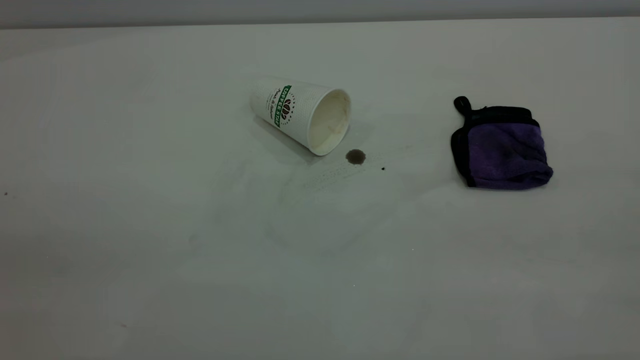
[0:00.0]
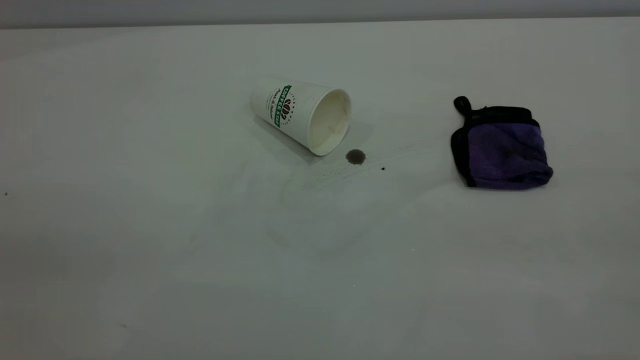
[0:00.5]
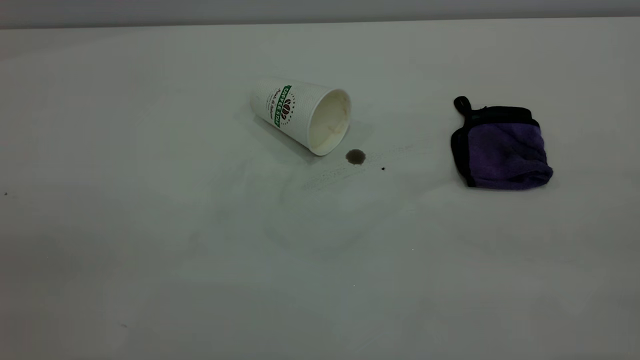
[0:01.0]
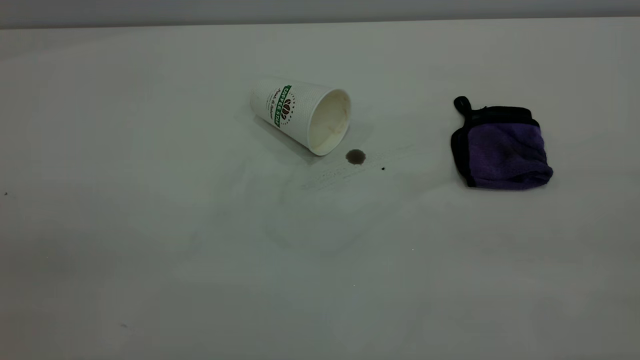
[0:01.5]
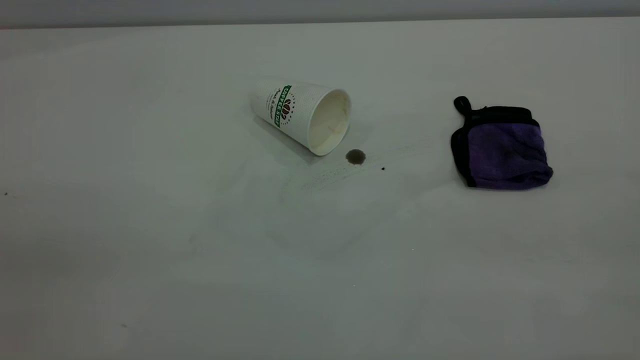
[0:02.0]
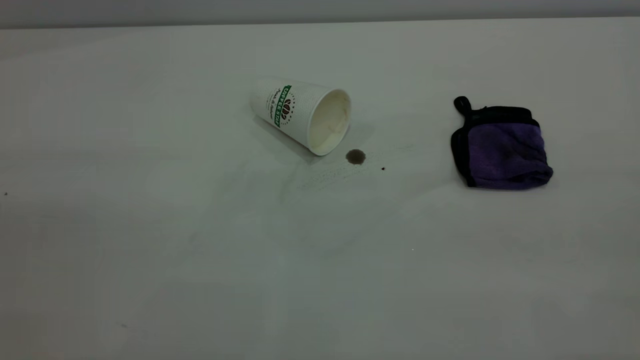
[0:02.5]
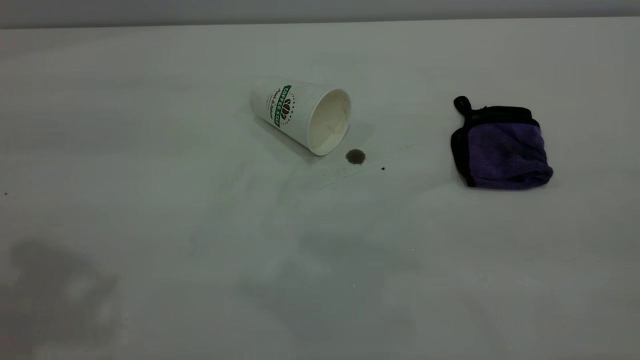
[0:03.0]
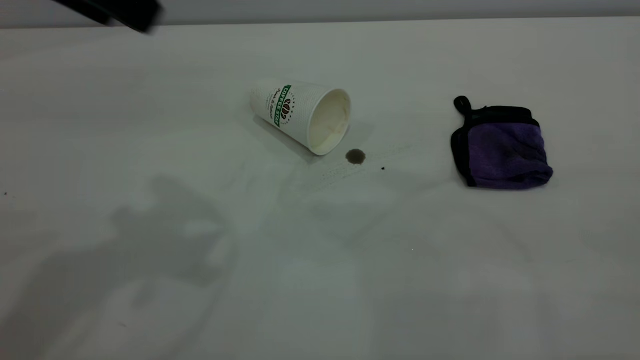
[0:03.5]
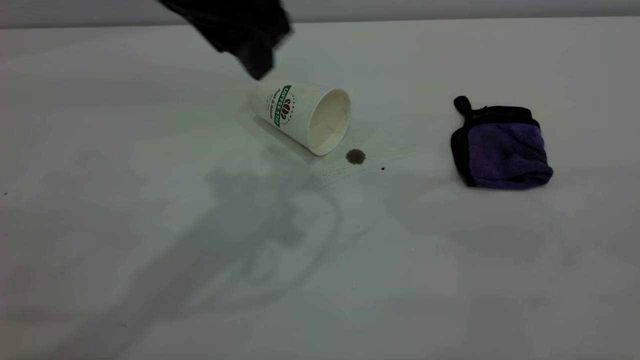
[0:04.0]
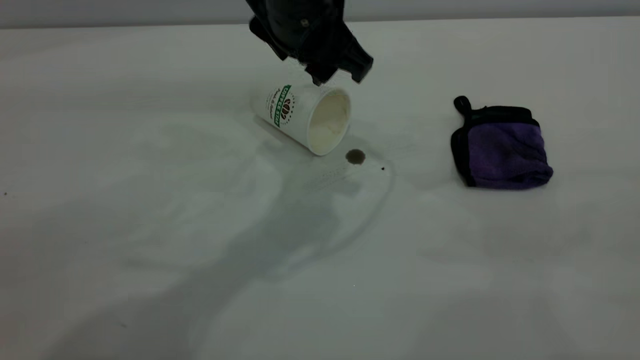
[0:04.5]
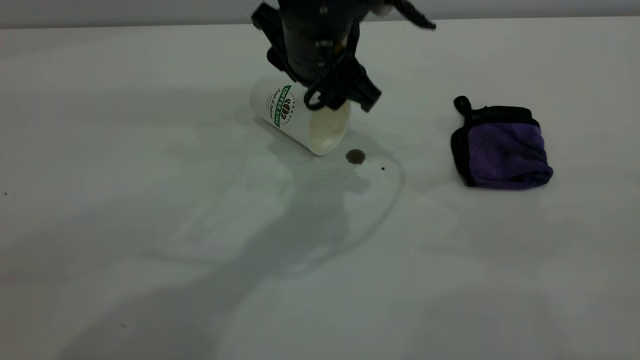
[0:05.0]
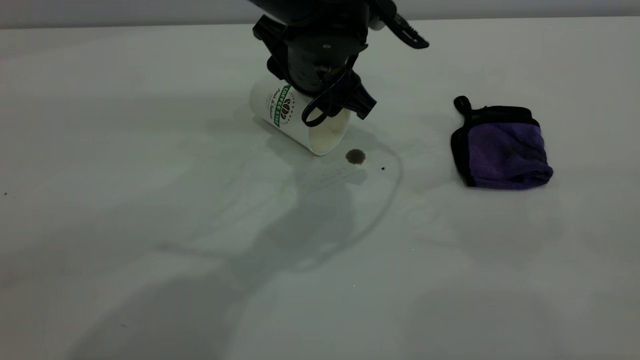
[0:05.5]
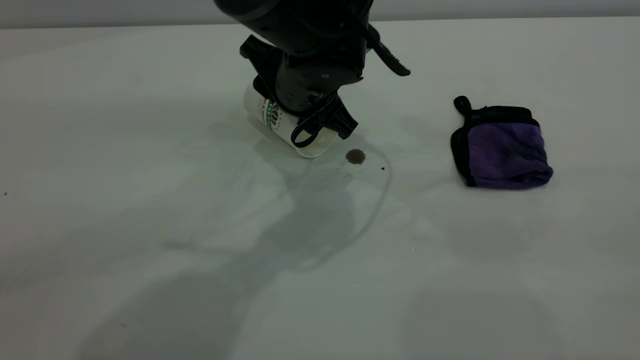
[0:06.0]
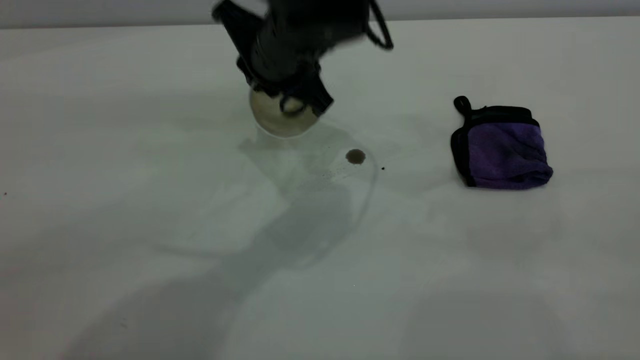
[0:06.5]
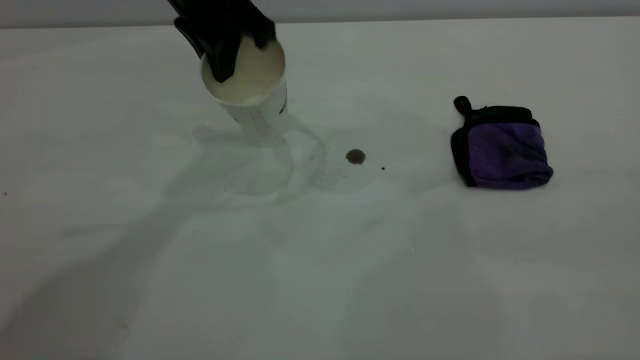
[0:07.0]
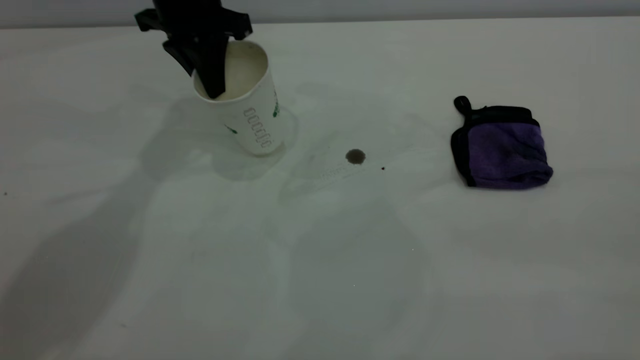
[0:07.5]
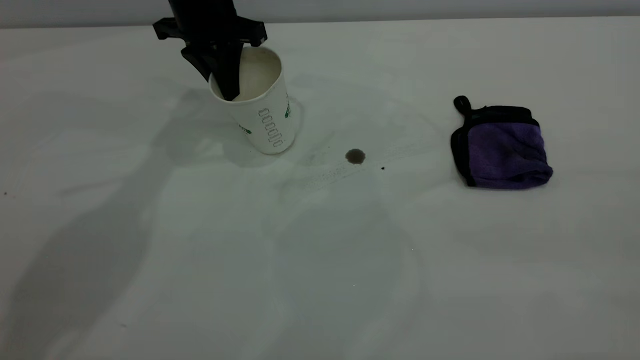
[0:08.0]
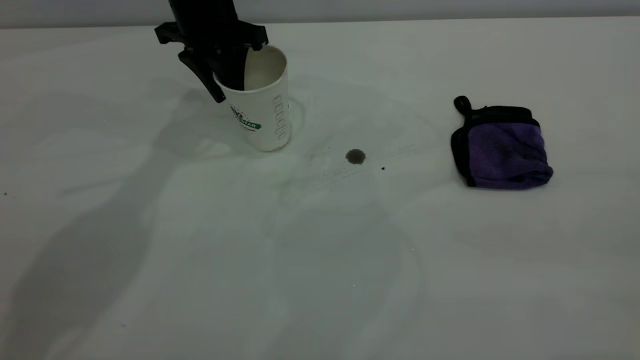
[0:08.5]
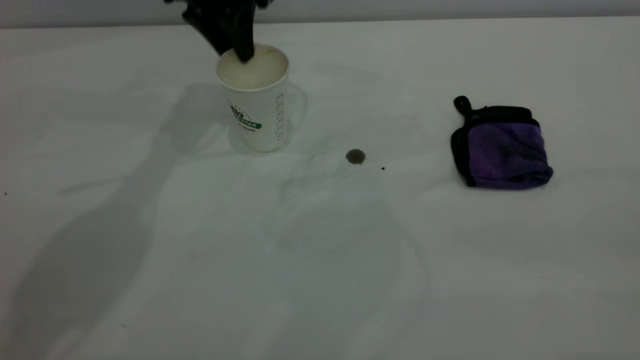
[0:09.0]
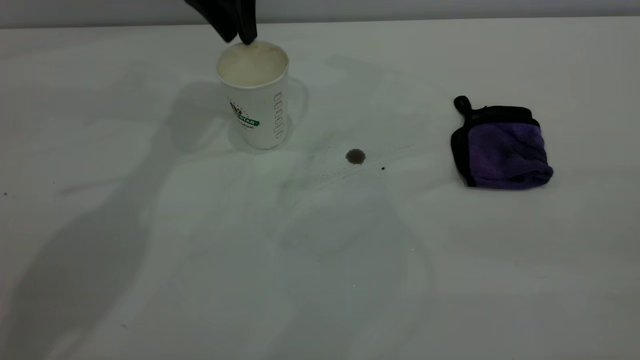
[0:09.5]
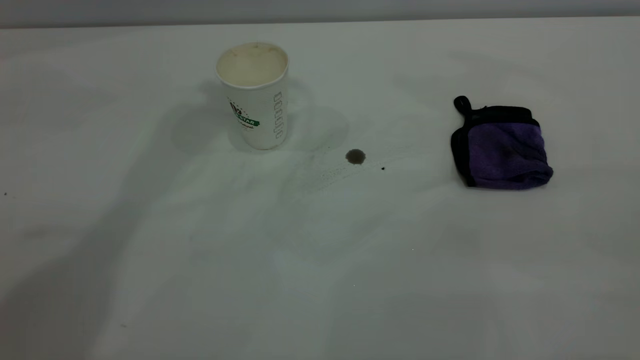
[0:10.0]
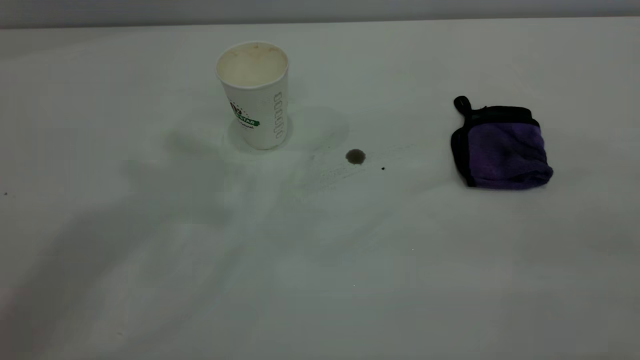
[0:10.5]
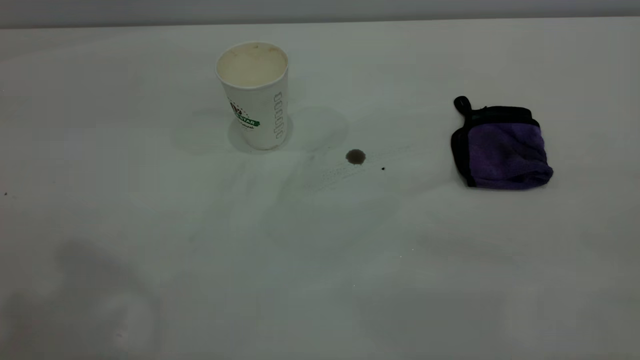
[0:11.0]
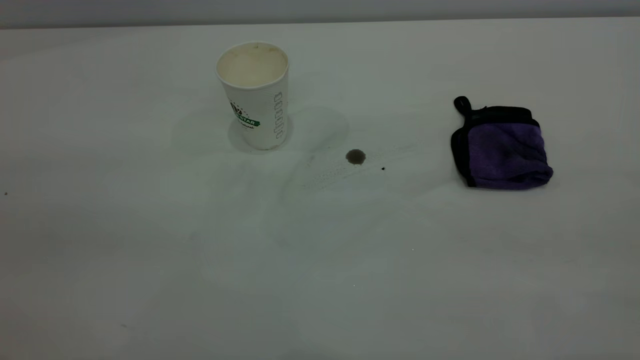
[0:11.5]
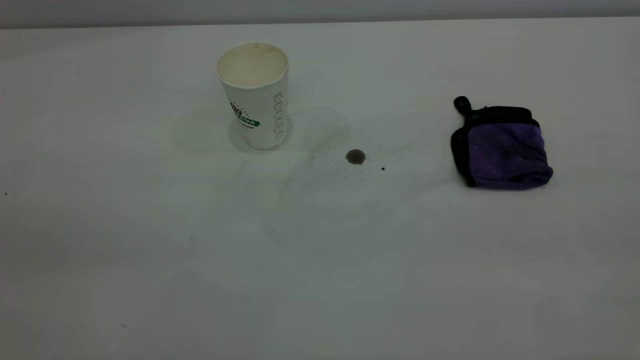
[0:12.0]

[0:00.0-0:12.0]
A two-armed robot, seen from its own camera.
Task of the whole recording: the left gripper pick up the fallen cup and place it upright, the right gripper grasp the purple rag and wipe the coffee stain on the table, the right gripper put the purple rag back in its original position.
Step, 0:00.0 to 0:09.0: Stand the paper cup upright.
0:00.0 to 0:02.0: Both grippers stay about where they are.
0:02.0 to 0:04.0: The left gripper goes some 40 cm forward and to the right.
0:04.0 to 0:06.0: The left gripper is displaced downward by roughly 15 cm.
0:06.0 to 0:08.0: The left gripper goes approximately 20 cm to the left and forward, and closes.
0:08.0 to 0:10.0: The left gripper goes about 30 cm upward, and opens its fingers.

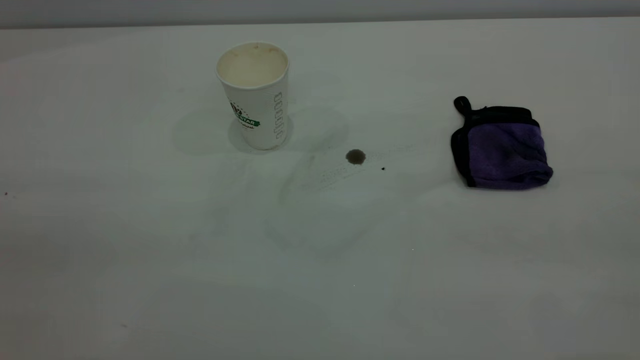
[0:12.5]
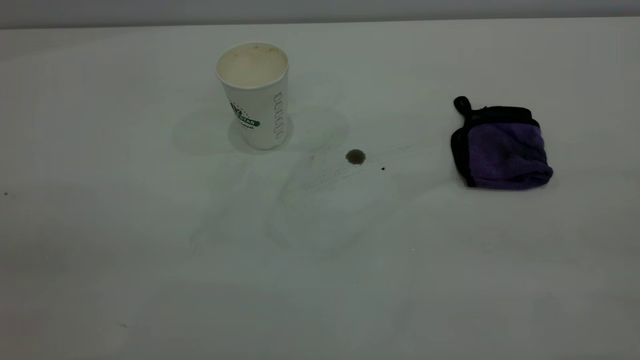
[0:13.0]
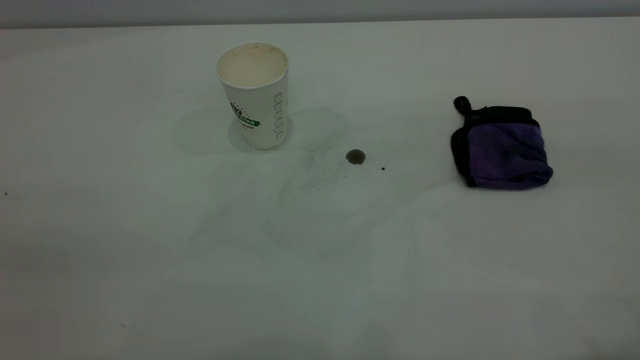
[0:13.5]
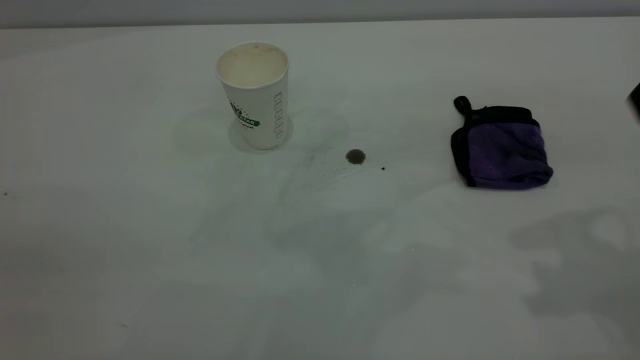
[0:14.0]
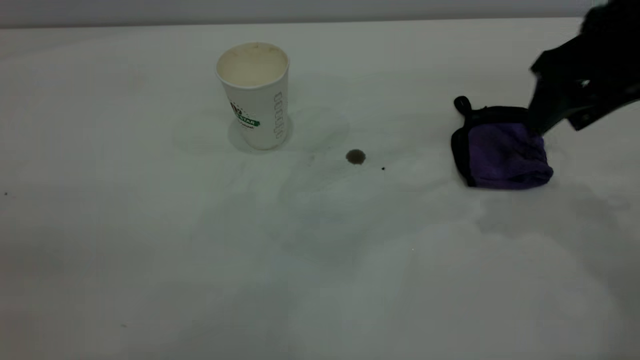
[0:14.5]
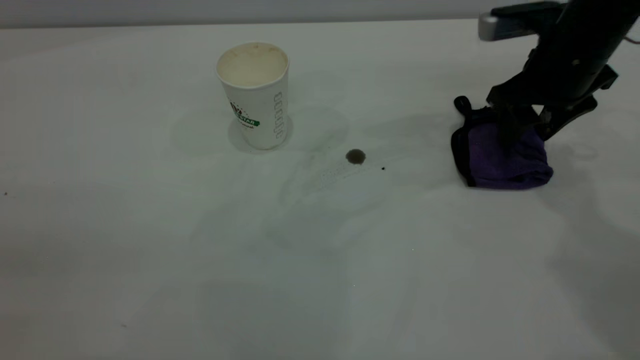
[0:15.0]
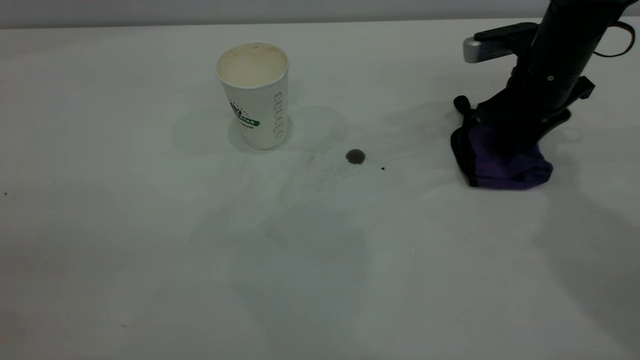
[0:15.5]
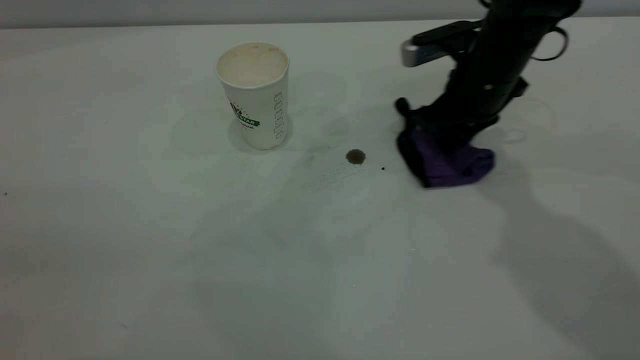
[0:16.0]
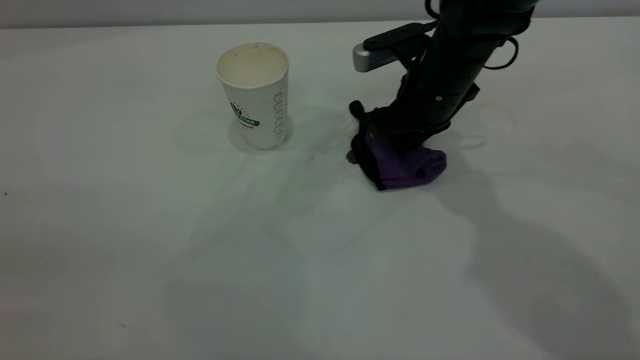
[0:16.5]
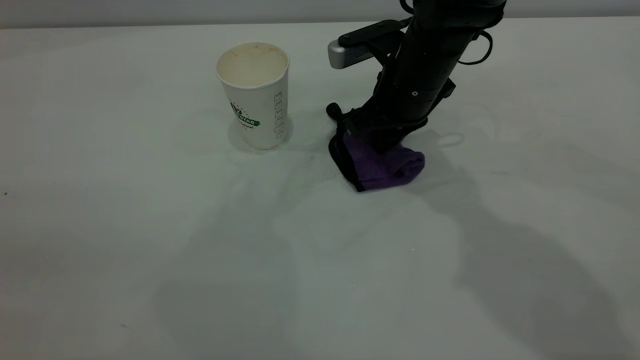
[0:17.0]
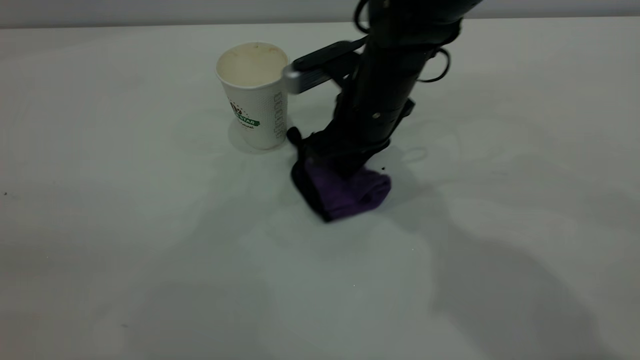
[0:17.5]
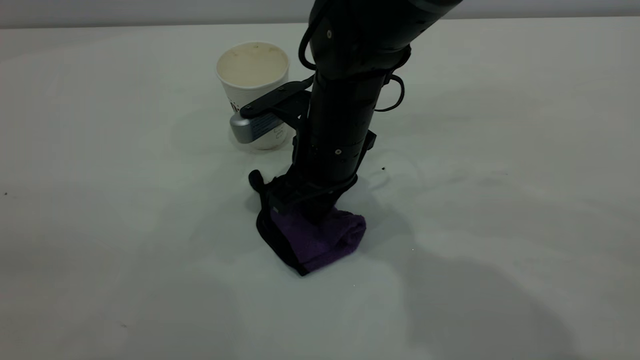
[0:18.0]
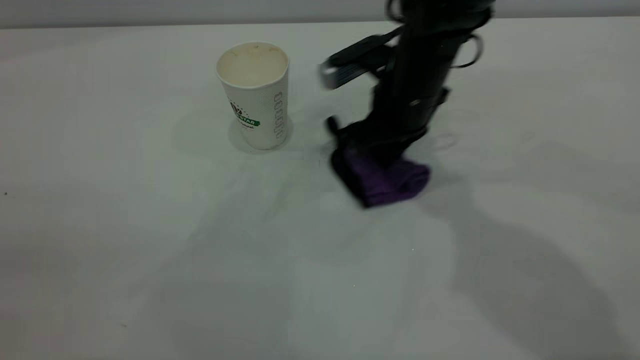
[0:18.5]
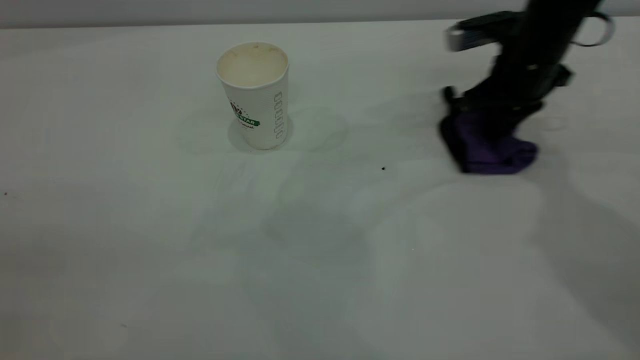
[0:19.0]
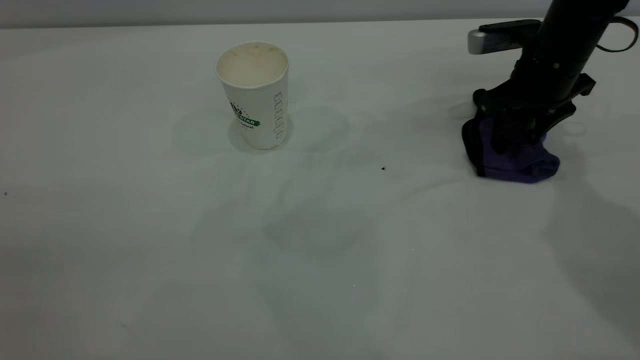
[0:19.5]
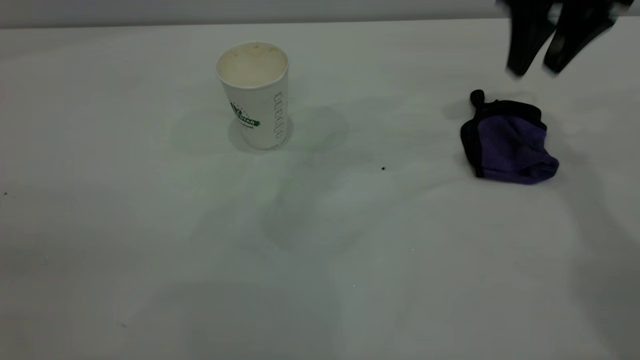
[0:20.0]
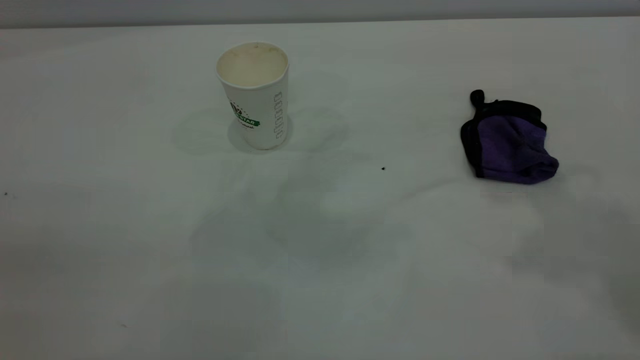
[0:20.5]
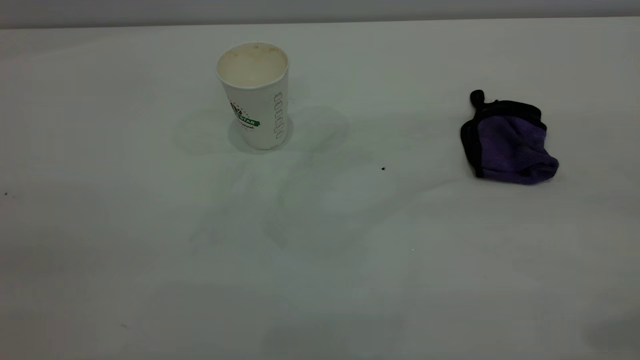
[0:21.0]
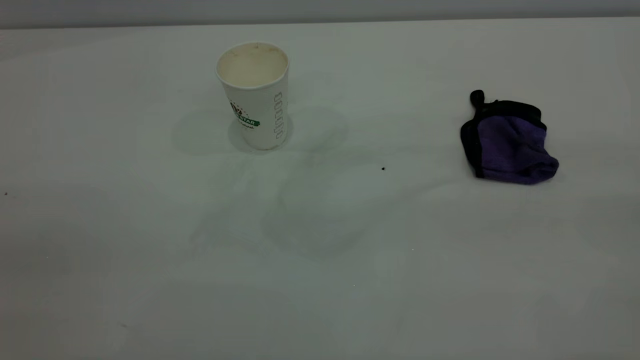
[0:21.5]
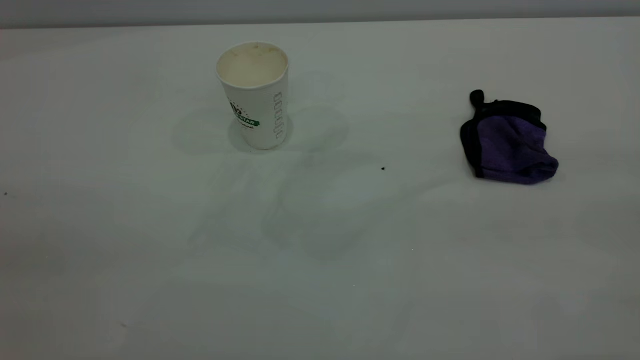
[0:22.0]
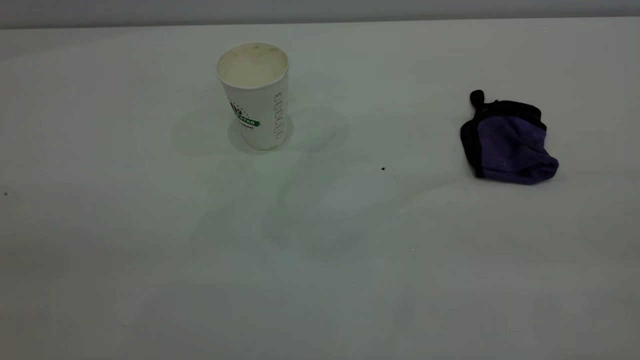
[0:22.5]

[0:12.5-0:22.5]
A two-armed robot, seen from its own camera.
Task of the whole recording: the left gripper pick up the fallen cup and place it upright, the right gripper grasp the purple rag and wipe the coffee stain on the table, the right gripper put the purple rag back in its original position.
Step, 0:12.5 to 0:19.5: Wipe the stains off the table with a rag.
0:12.5 to 0:14.5: The right gripper travels forward and downward by about 35 cm, and opens up.
0:14.5 to 0:16.5: The right gripper heads to the left, downward and forward, covering roughly 20 cm, and closes.
0:16.5 to 0:18.5: The right gripper travels to the left and back again, roughly 10 cm each way.
0:18.5 to 0:20.5: The right gripper goes some 35 cm upward, to the right and backward, and opens.
